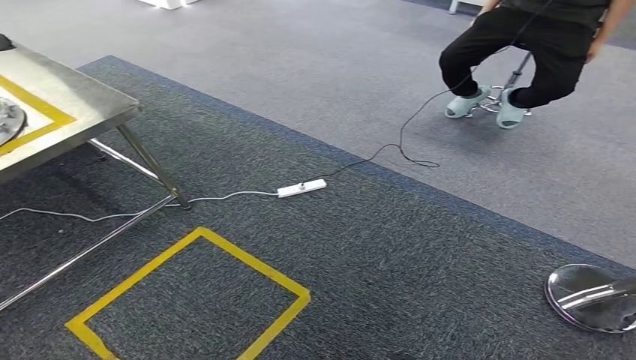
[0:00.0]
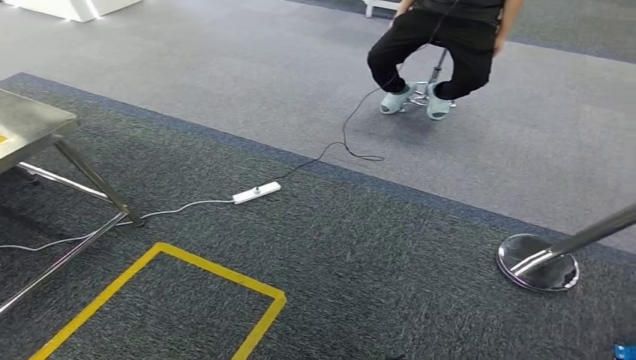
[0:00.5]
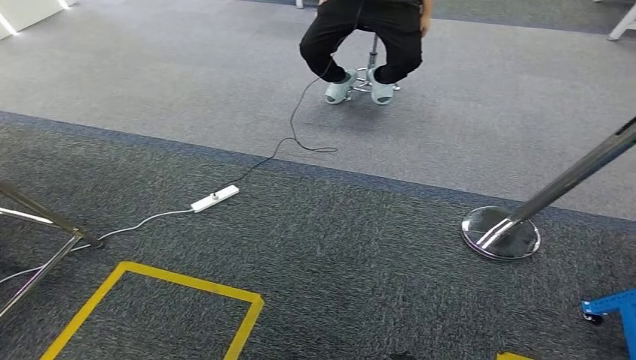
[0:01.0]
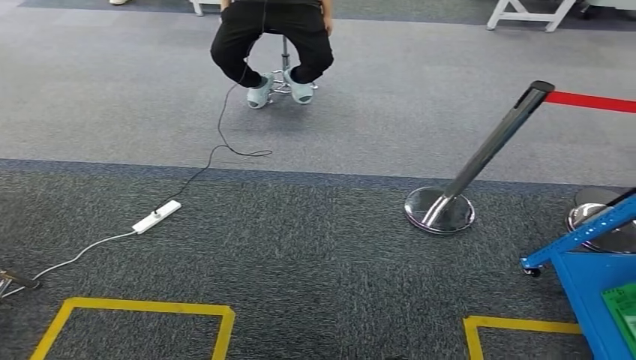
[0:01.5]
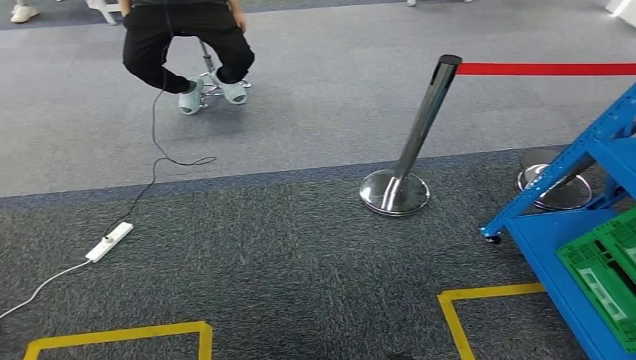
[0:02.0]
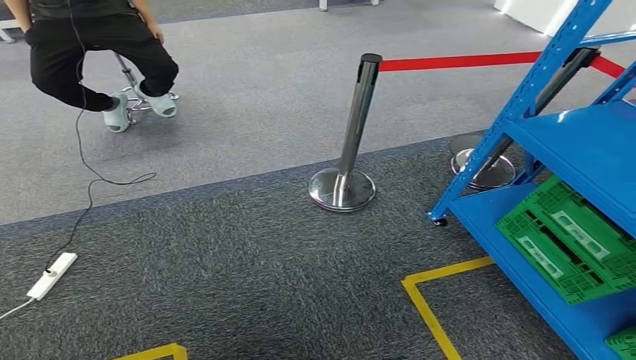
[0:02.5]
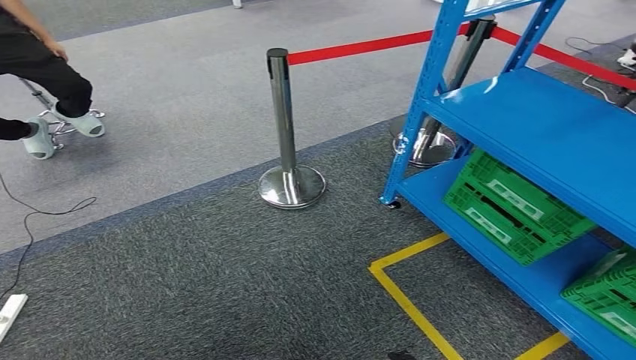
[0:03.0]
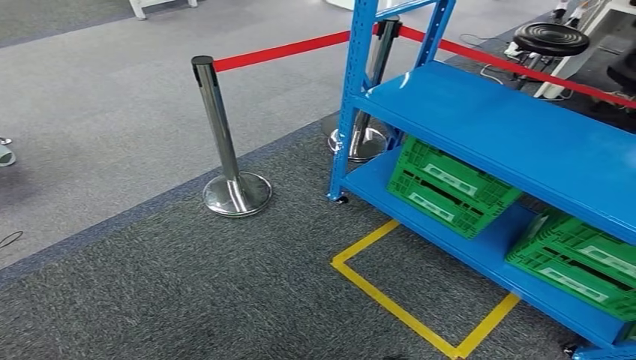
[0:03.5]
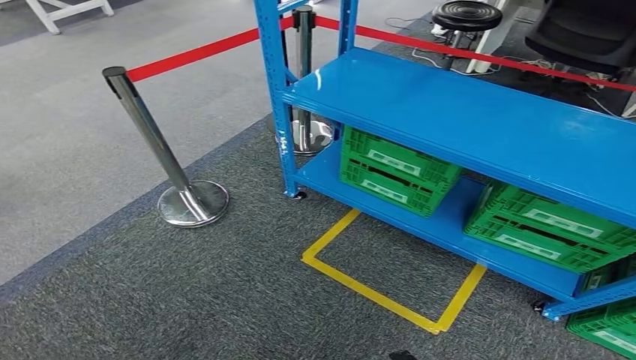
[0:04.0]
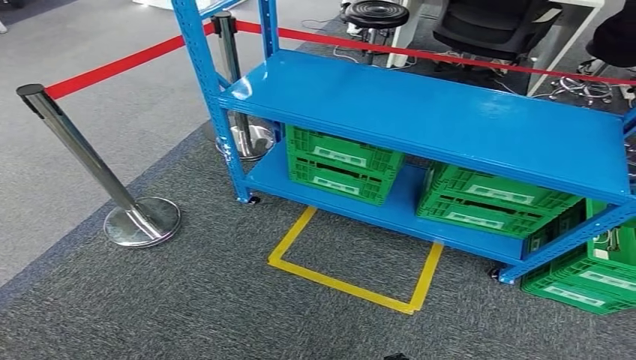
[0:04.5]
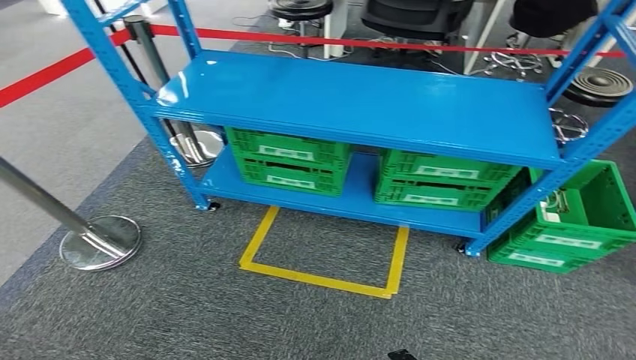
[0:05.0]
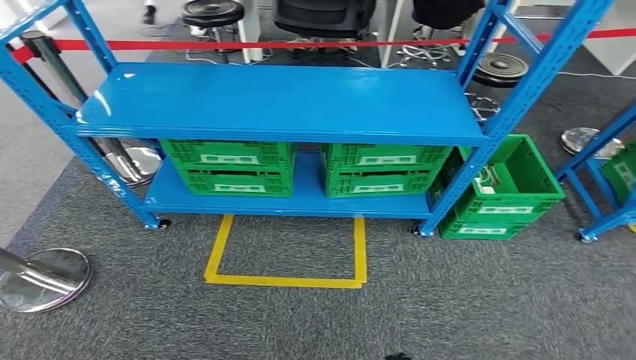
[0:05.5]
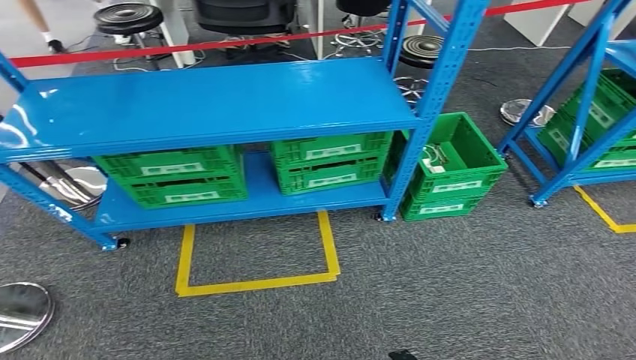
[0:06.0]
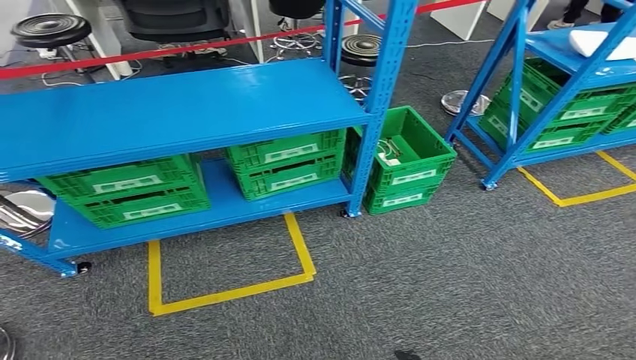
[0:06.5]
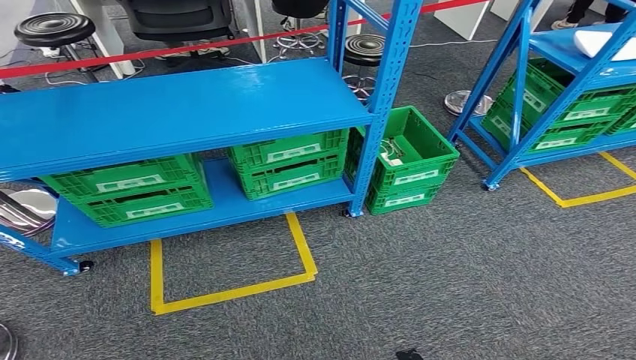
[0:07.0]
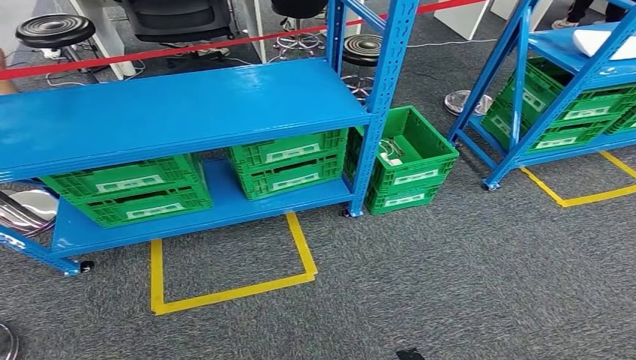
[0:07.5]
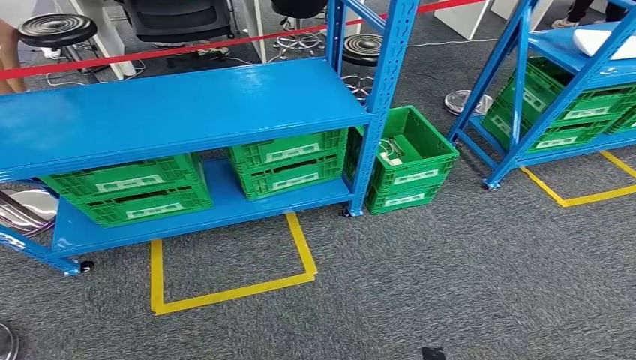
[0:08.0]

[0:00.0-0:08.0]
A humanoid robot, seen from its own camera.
Step, 0:00.0 to 0:07.5: Move to the initial position at the workbench.
